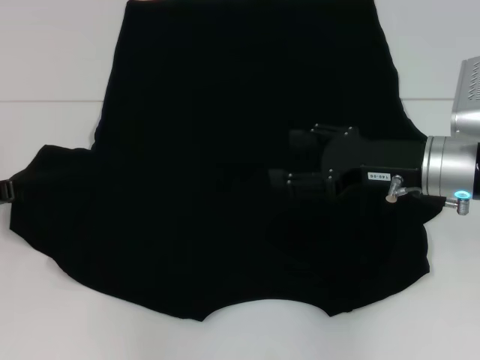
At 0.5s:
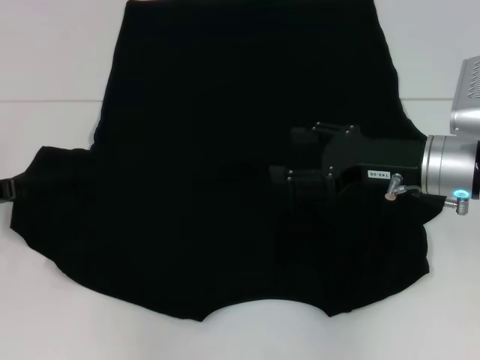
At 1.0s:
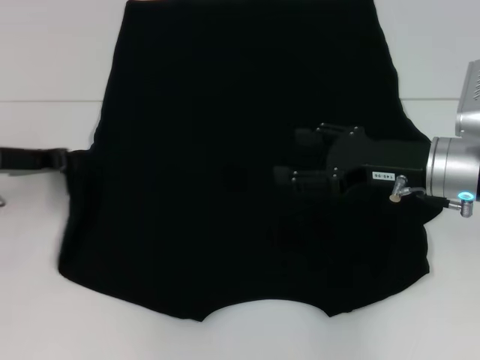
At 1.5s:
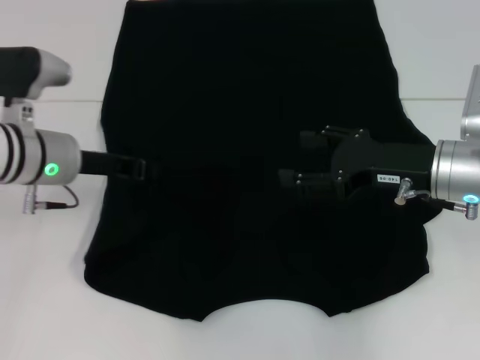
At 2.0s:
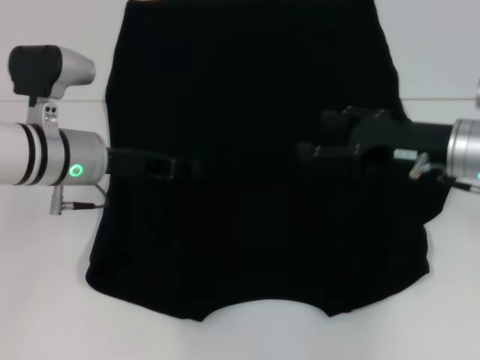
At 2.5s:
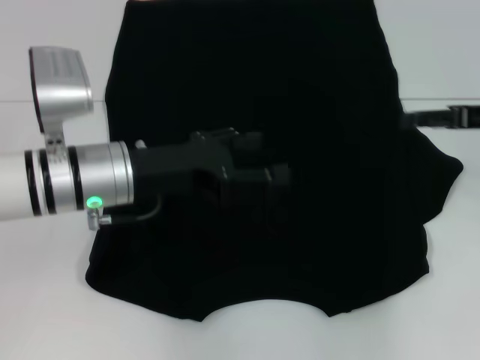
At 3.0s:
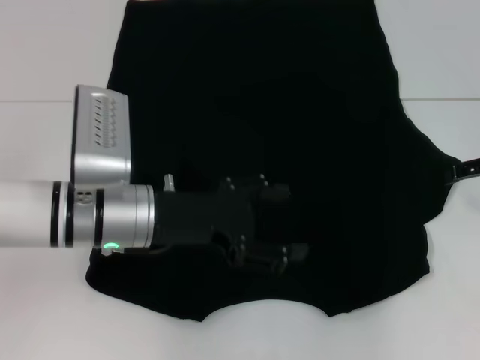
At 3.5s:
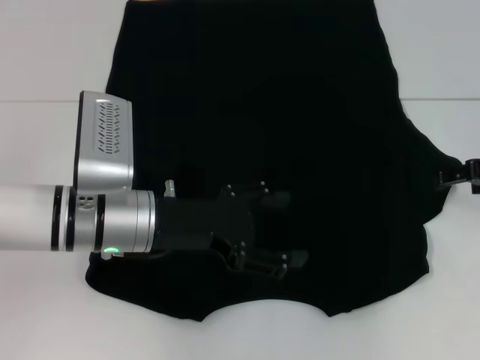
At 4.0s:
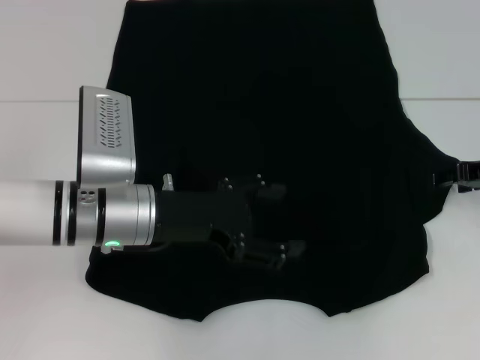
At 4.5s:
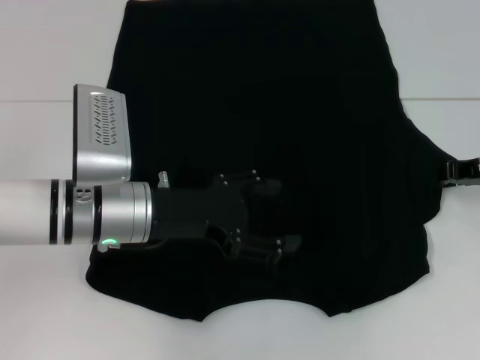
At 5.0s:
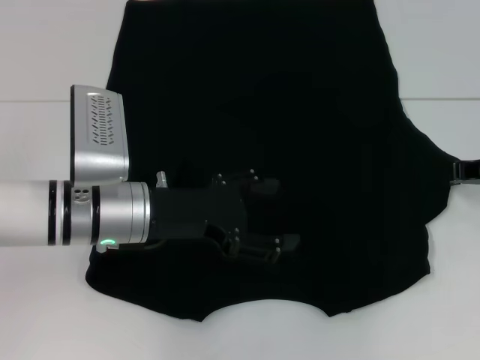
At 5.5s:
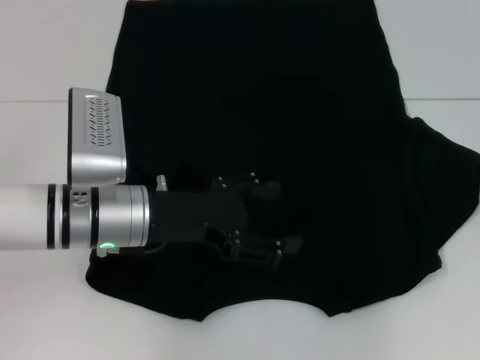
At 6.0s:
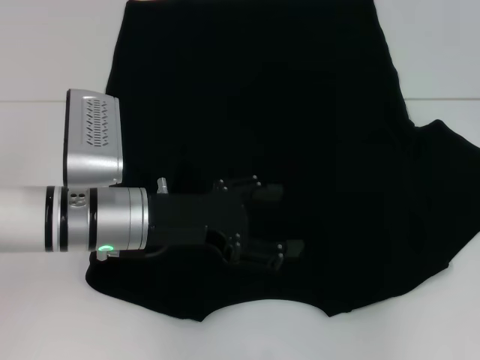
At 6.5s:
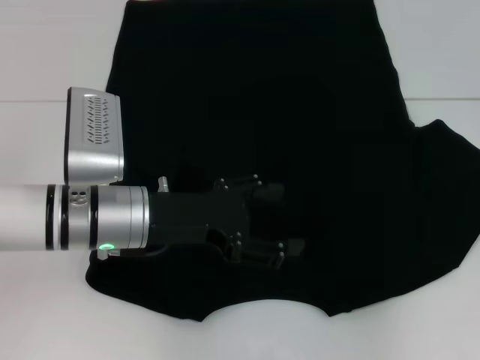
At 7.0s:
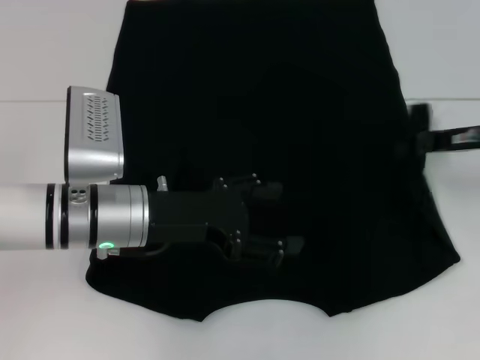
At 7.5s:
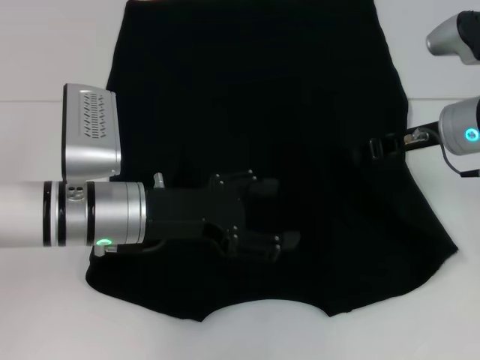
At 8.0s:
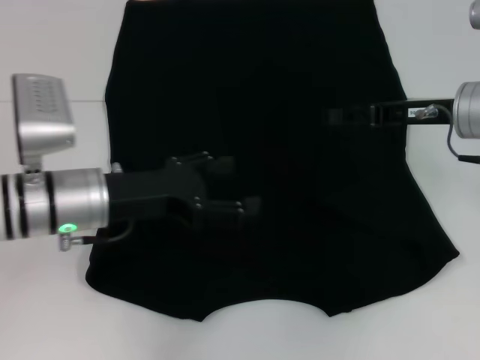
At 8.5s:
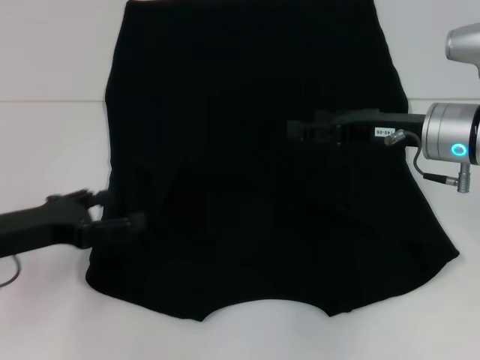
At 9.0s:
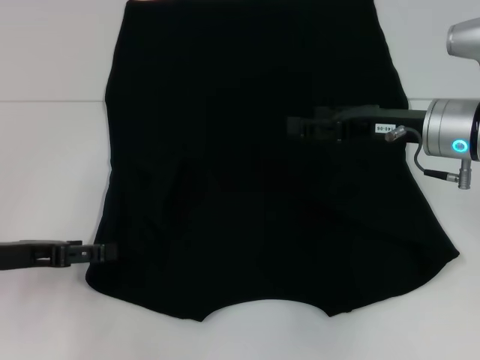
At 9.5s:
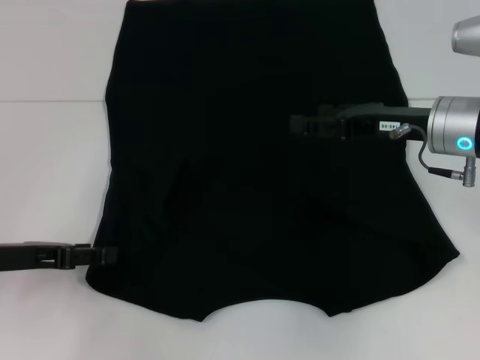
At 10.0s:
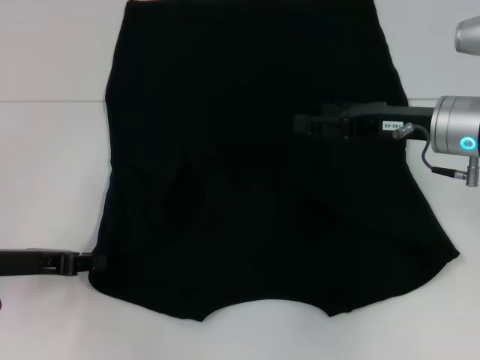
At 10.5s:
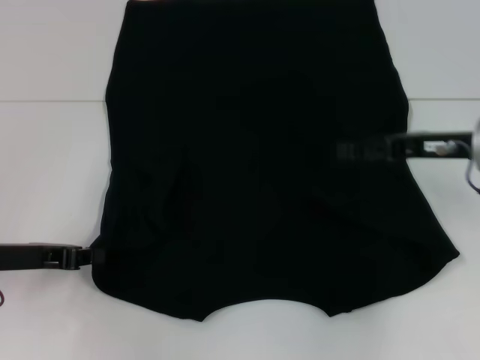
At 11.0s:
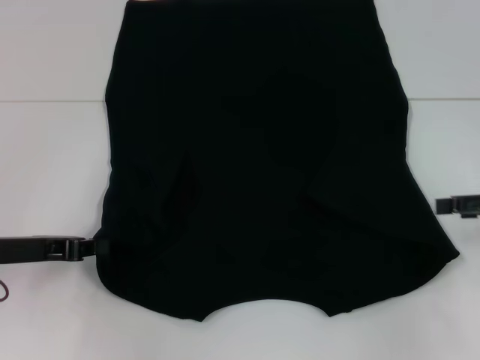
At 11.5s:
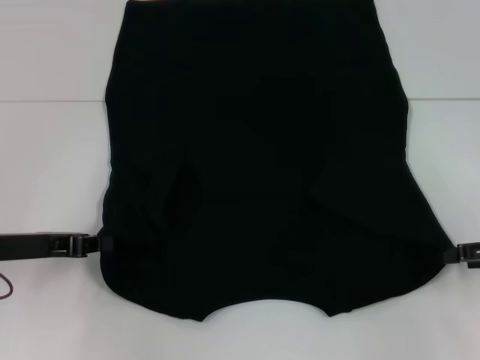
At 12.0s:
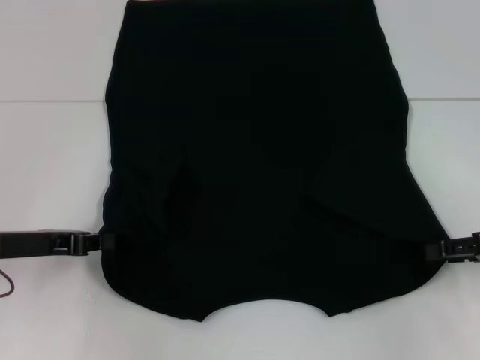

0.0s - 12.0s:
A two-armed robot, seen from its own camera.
Step, 2.0s - 7.5s: Fold the bottom right sleeve with your right hand.
Step, 8.0s - 10.0s: Grab the bottom left corner with your left hand.
0.0s - 2.0s: The left gripper is displaced to the right by some 15 cm.
2.0s - 4.0s: The right gripper shifts roughly 10 cm to the right; the left gripper goes some 5 cm backward, and opens up.
4.0s - 6.0s: The right gripper goes approximately 5 cm to the right, and closes.
6.0s - 8.0s: The right gripper heads to the left, covering roughly 15 cm, and opens.
8.0s - 10.0s: The left gripper heads to the left, covering roughly 10 cm, and closes. Meanwhile the right gripper opens.
10.0s - 12.0s: The right gripper is displaced to the right and backward by some 15 cm, while the left gripper closes its fingers.

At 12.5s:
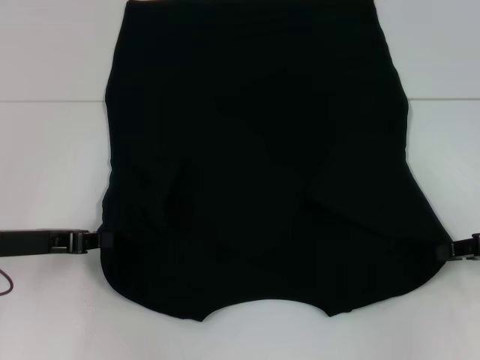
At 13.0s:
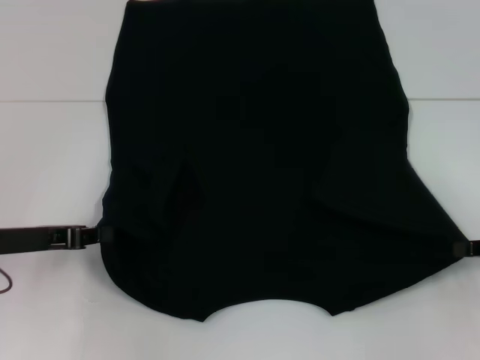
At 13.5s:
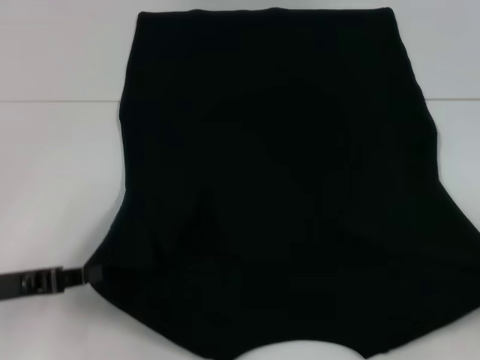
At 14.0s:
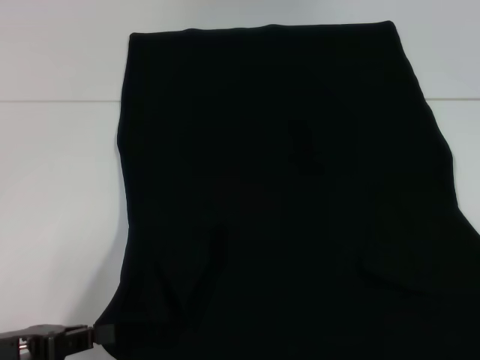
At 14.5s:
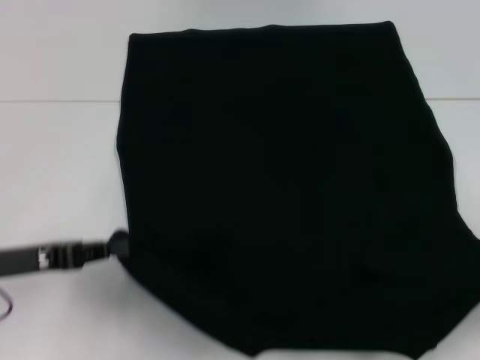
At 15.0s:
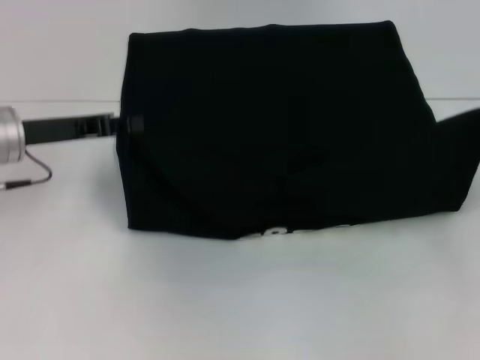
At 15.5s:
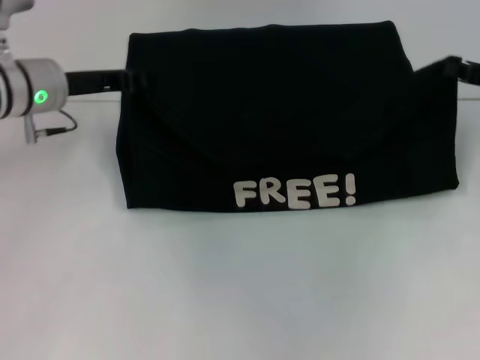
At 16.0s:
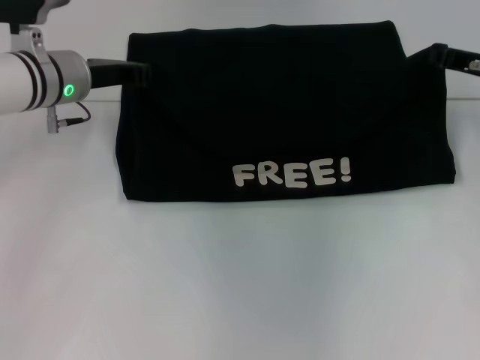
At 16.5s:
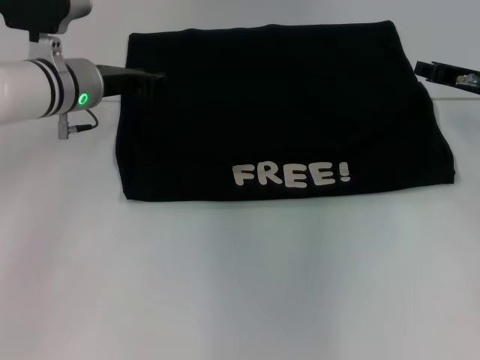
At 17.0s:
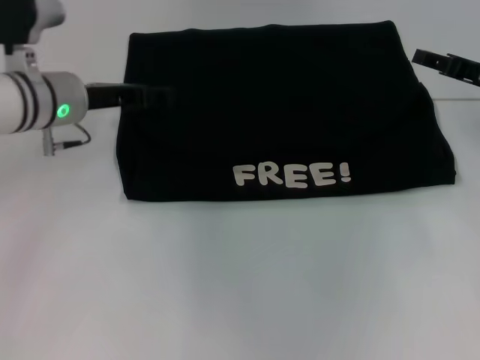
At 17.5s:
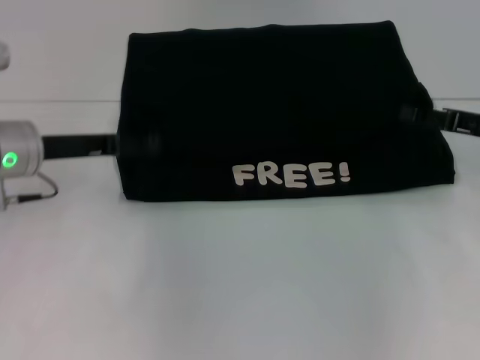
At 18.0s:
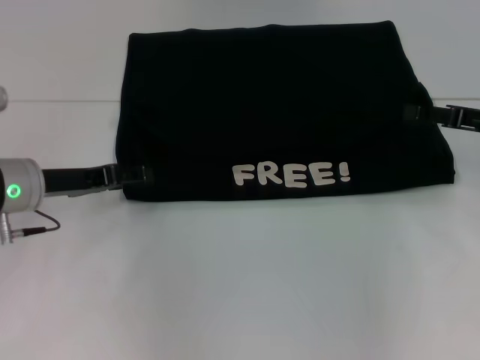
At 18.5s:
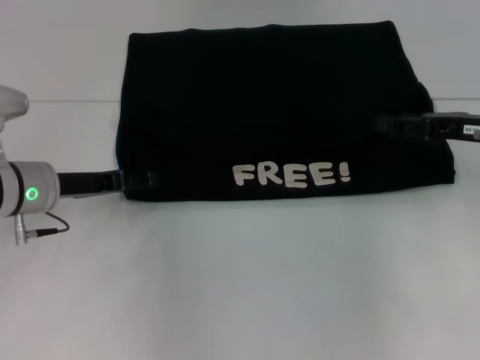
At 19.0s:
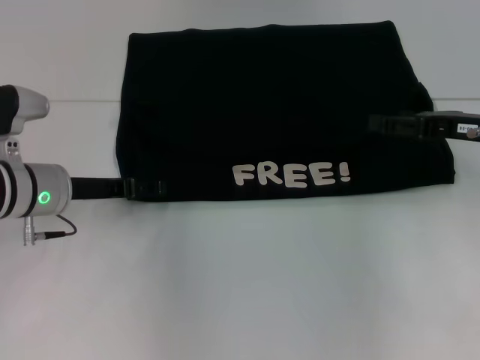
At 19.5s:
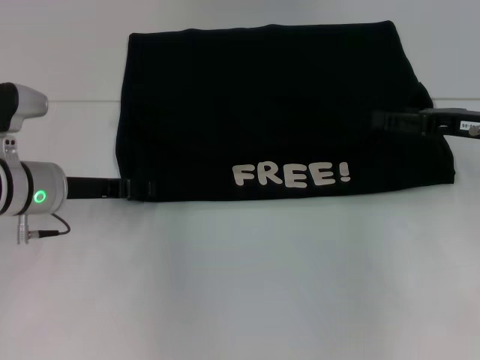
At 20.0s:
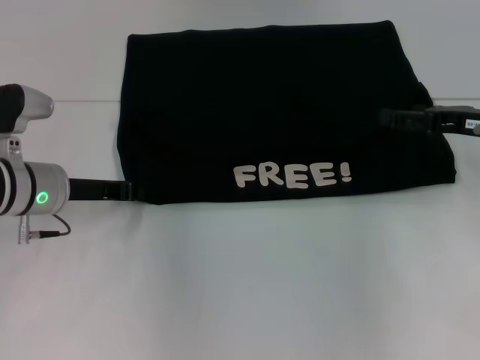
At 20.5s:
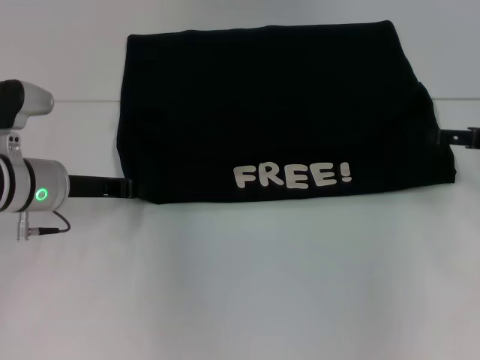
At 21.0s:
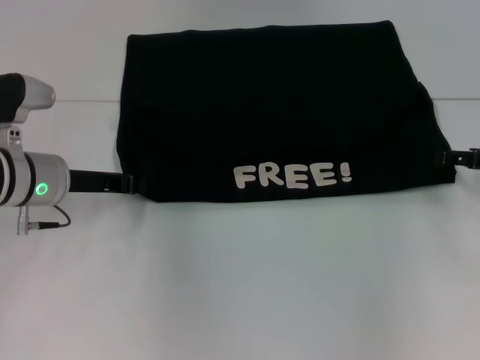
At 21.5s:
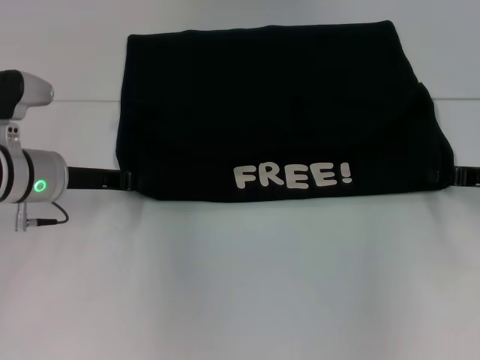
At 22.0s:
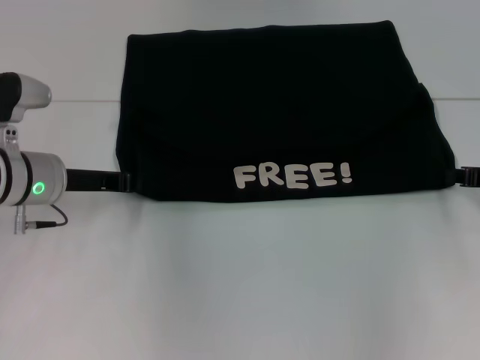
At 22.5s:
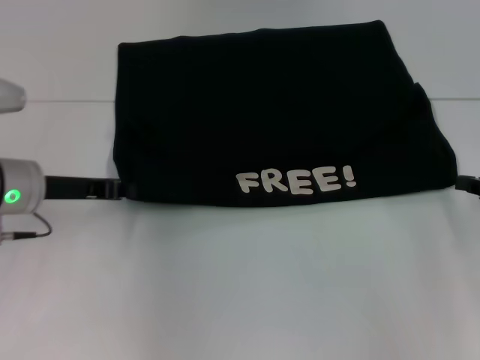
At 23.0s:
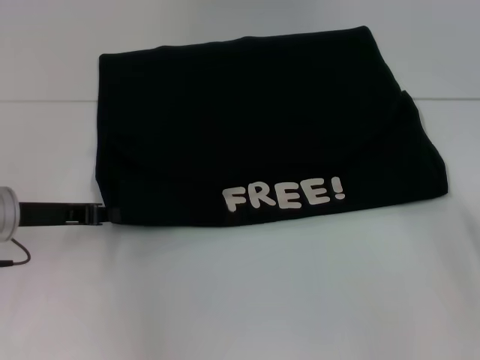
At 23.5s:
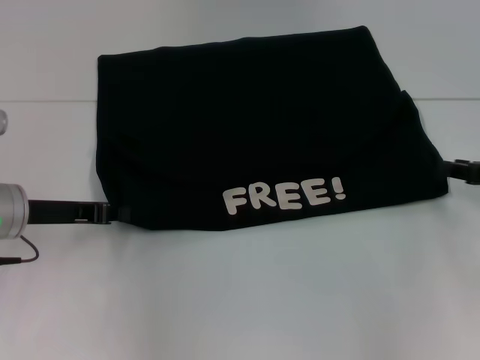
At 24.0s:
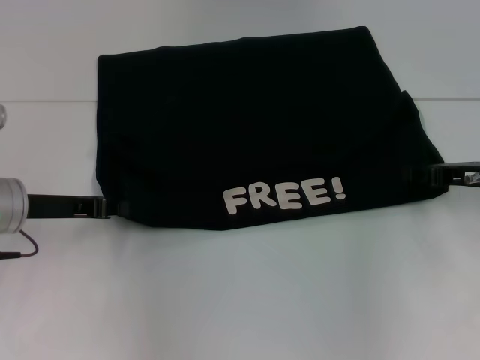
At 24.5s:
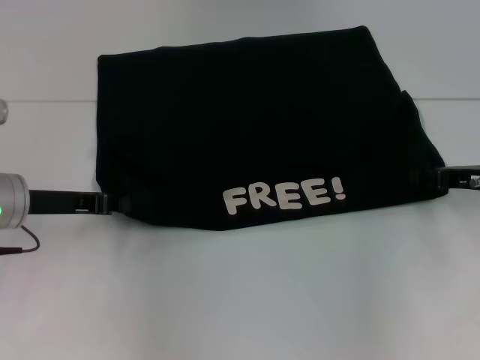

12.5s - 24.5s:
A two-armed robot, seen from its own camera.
Step, 13.0s - 16.5s: Fold the clothes with your left hand.
Step, 13.0s - 16.5s: Fold the clothes with your right hand.
12.5s - 14.5s: The right gripper moves backward and to the right, about 10 cm.
14.5s - 16.5s: The right gripper travels forward and to the left by some 25 cm. The left gripper is displaced forward and to the right by some 20 cm.
16.5s - 18.5s: The left gripper moves backward and downward, some 10 cm, and opens. The right gripper goes about 5 cm backward, and opens.
18.5s - 20.5s: The left gripper closes its fingers.
20.5s - 22.5s: The right gripper ends up some 5 cm from where it was, and closes up.
22.5s - 24.5s: The right gripper ends up some 5 cm from where it was, and opens up.

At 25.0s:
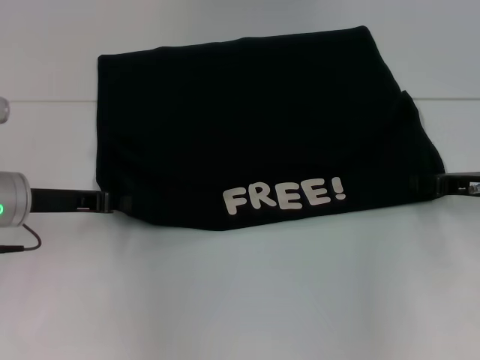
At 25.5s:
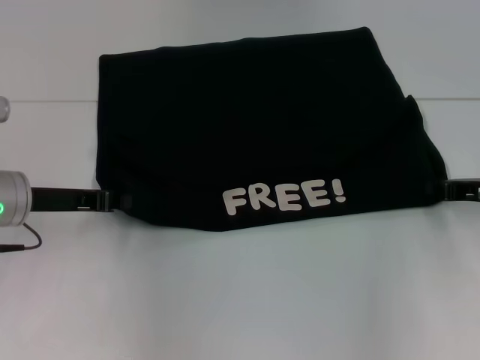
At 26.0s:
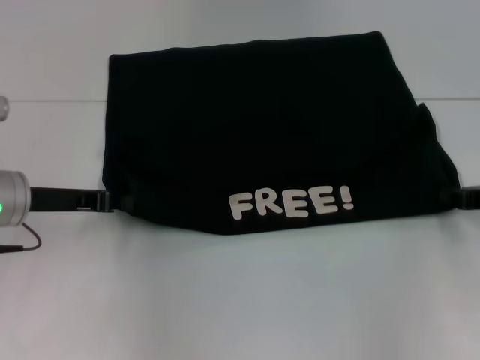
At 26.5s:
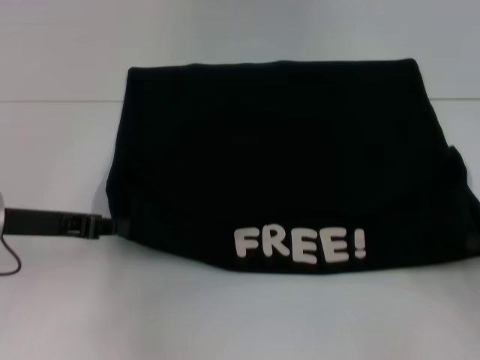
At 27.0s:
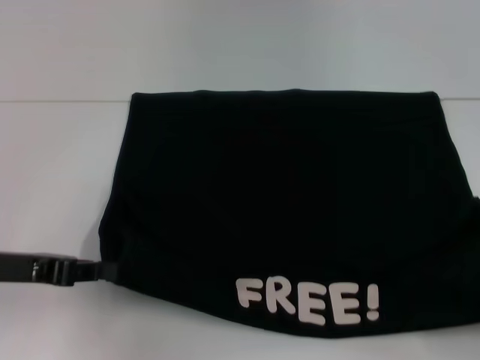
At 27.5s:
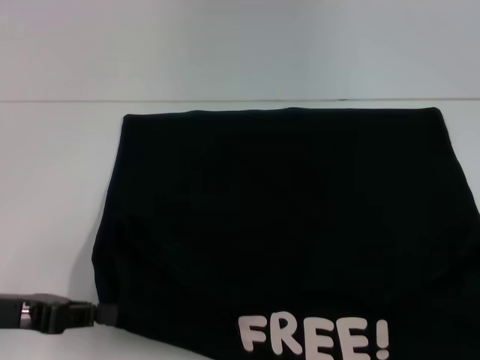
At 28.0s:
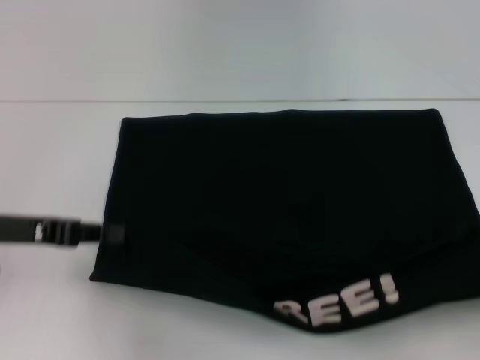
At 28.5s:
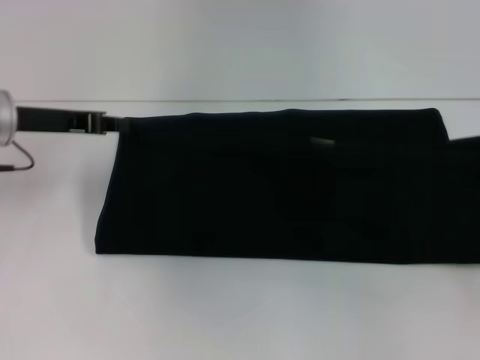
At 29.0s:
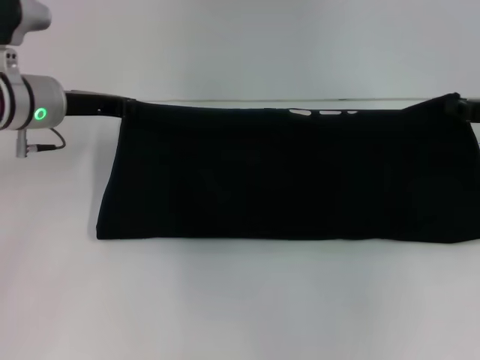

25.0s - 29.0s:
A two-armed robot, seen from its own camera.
Step, 25.0s - 27.5s: Pull the clothes with your left hand.
Step, 25.0s - 27.5s: Pull the clothes with your right hand.
25.0s - 27.0s: The left gripper shifts about 5 cm backward. The right gripper moves backward and to the right, some 20 cm, and closes up.
27.0s - 29.0s: The two grippers go approximately 20 cm forward.
